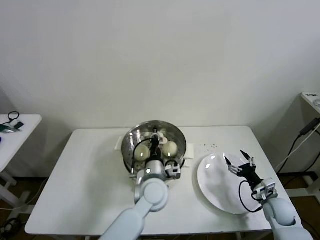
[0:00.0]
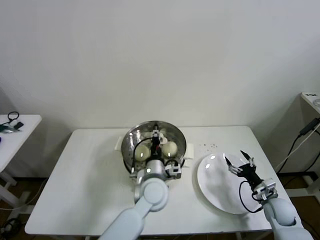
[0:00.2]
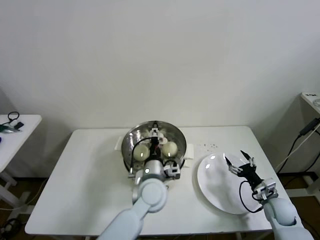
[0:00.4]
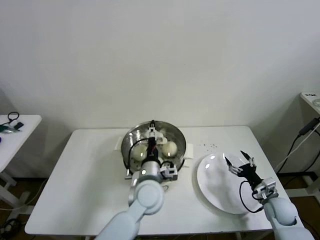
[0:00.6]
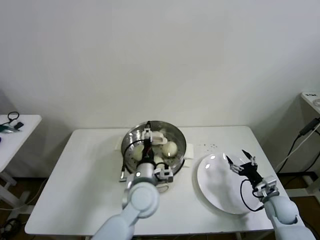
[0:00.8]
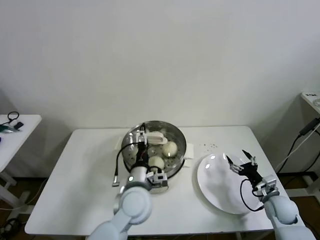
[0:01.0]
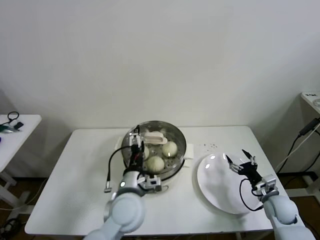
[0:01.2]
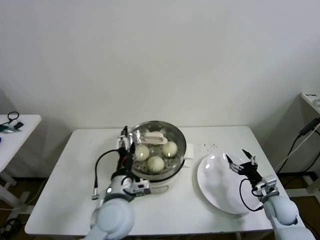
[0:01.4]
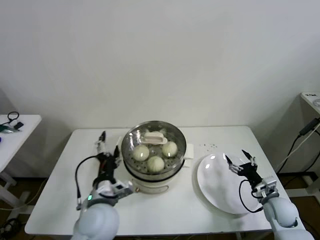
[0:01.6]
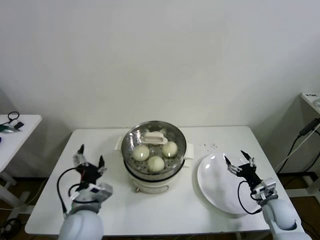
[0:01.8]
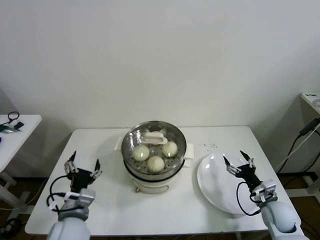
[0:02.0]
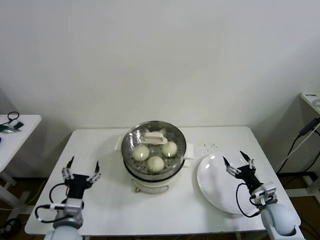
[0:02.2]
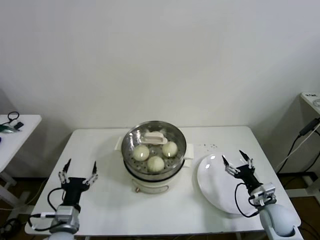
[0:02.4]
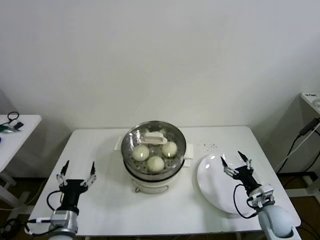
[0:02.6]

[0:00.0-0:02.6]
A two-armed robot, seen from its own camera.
0:00.0 to 0:01.2: The left gripper goes about 10 cm to the left and backward, and opens its fingers.
0:01.2 to 0:02.6: The left gripper heads to the left and backward, covering roughly 20 cm. The right gripper shifts by approximately 5 cm.

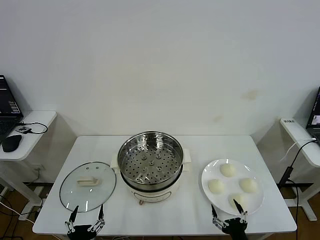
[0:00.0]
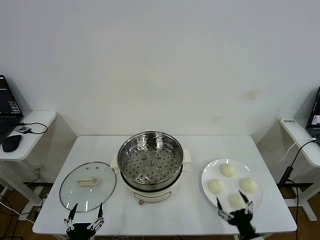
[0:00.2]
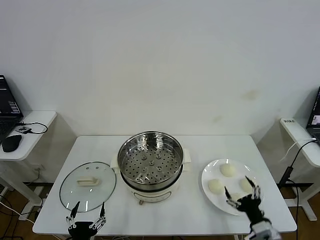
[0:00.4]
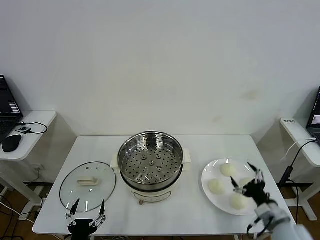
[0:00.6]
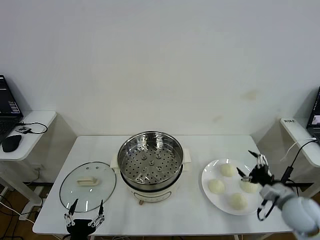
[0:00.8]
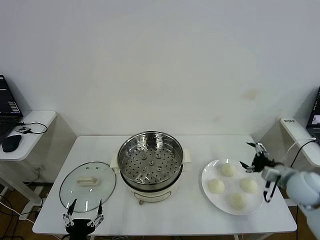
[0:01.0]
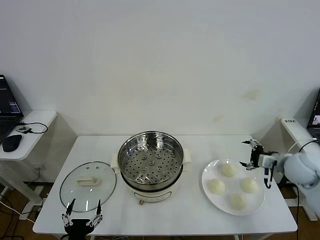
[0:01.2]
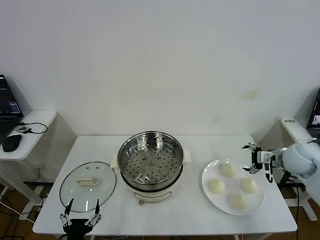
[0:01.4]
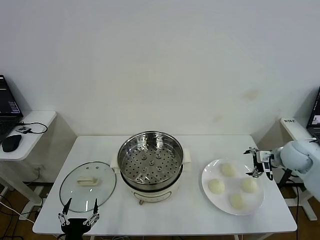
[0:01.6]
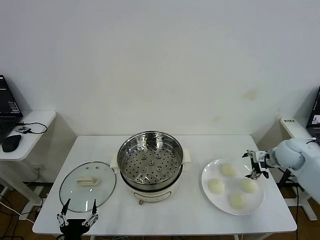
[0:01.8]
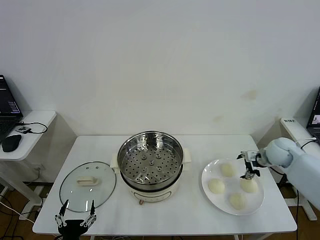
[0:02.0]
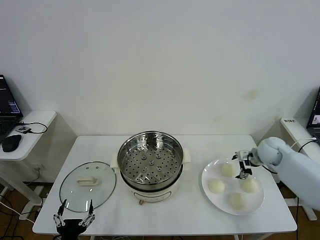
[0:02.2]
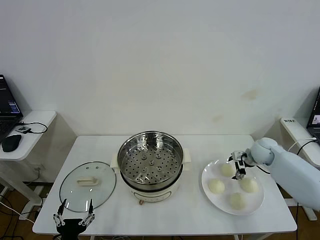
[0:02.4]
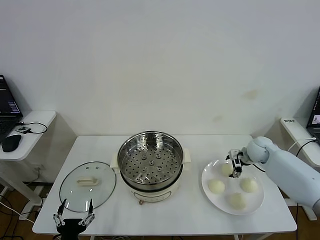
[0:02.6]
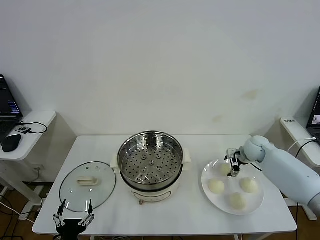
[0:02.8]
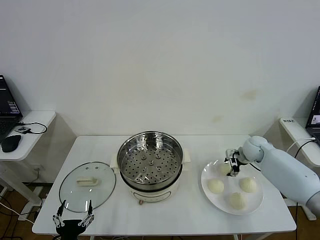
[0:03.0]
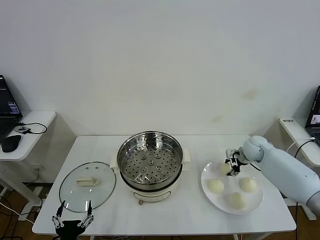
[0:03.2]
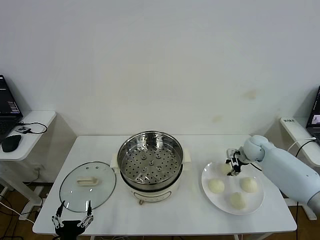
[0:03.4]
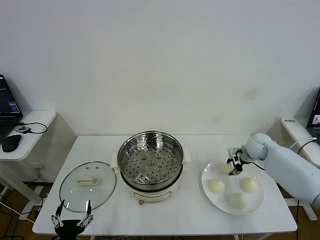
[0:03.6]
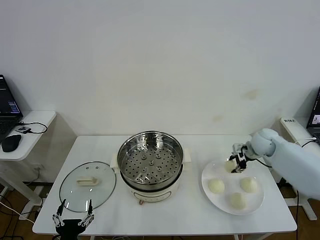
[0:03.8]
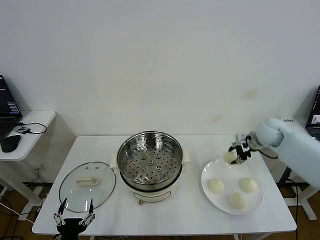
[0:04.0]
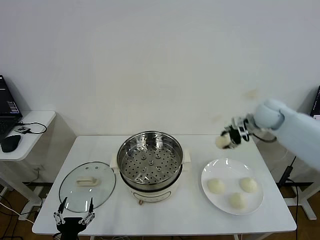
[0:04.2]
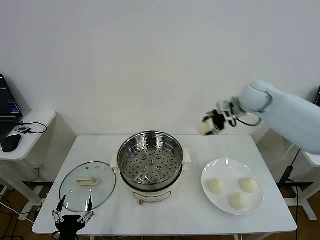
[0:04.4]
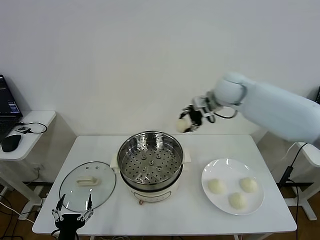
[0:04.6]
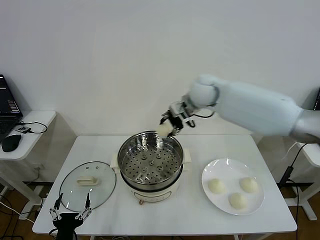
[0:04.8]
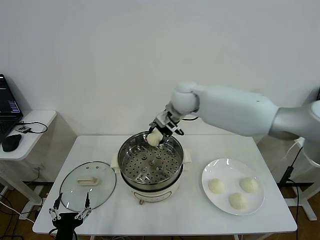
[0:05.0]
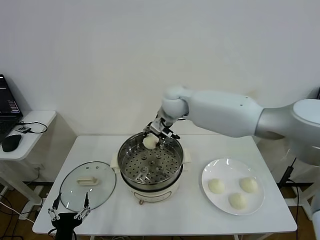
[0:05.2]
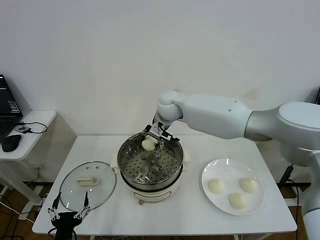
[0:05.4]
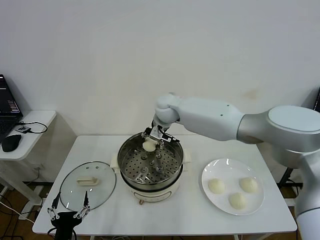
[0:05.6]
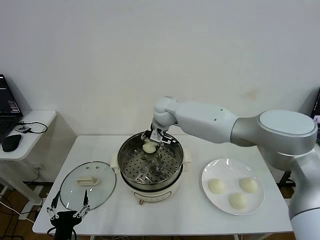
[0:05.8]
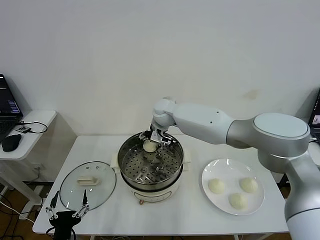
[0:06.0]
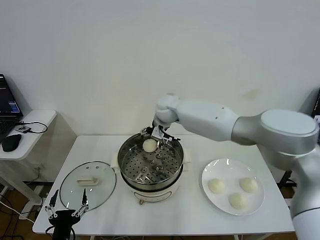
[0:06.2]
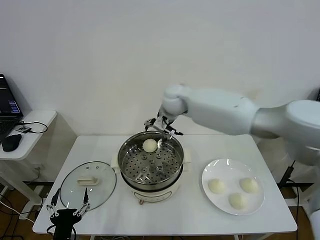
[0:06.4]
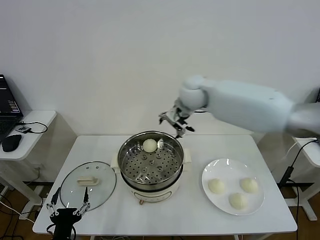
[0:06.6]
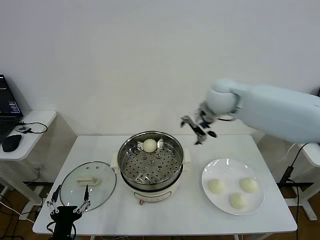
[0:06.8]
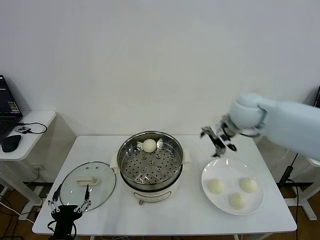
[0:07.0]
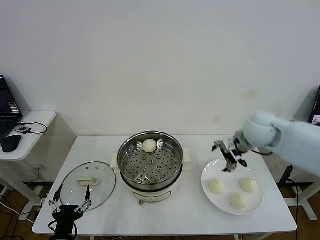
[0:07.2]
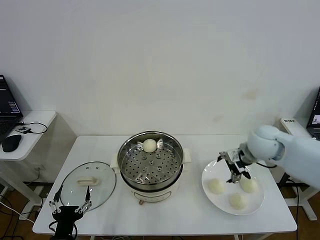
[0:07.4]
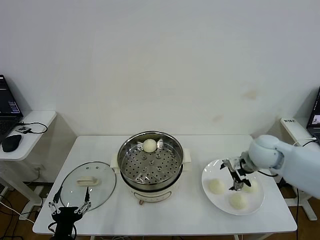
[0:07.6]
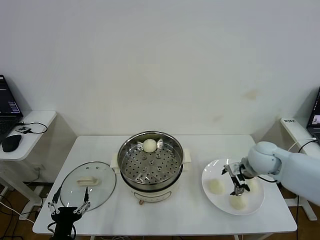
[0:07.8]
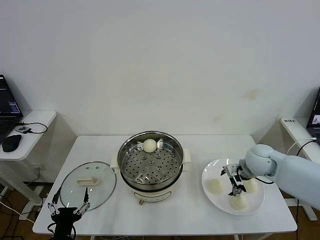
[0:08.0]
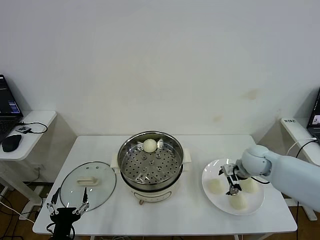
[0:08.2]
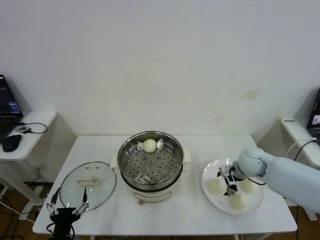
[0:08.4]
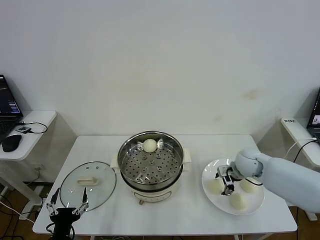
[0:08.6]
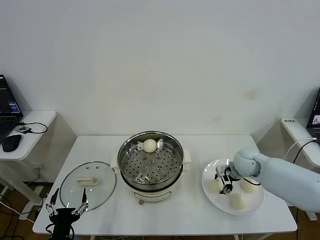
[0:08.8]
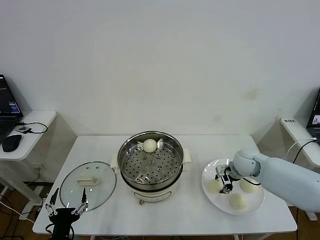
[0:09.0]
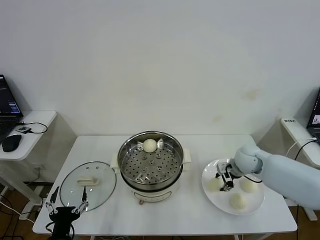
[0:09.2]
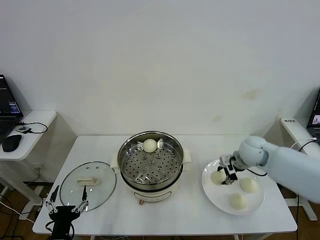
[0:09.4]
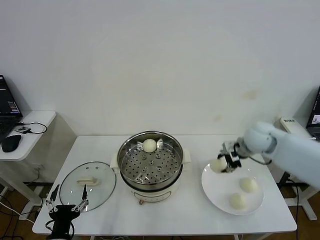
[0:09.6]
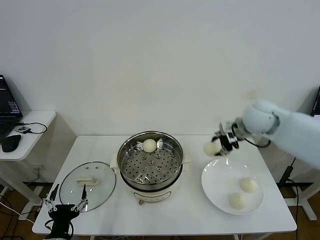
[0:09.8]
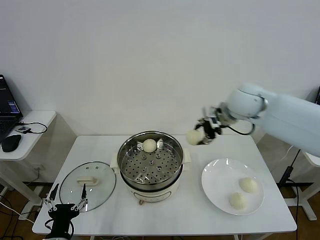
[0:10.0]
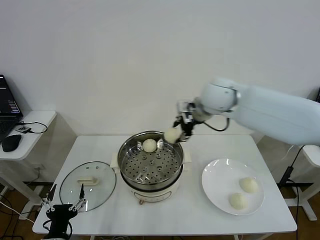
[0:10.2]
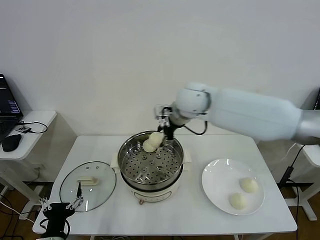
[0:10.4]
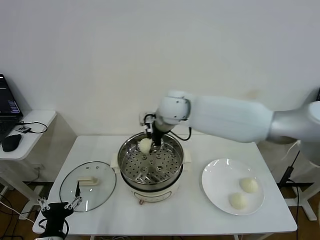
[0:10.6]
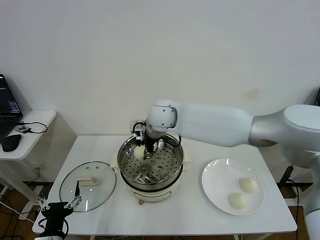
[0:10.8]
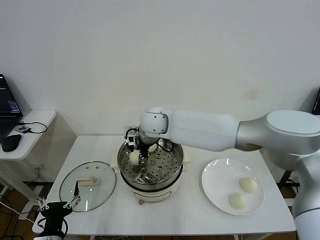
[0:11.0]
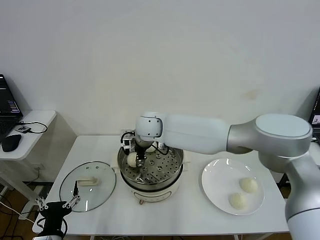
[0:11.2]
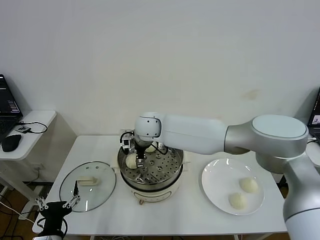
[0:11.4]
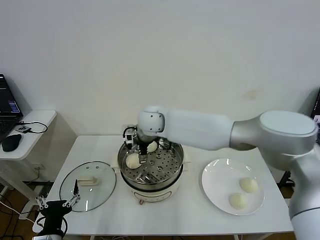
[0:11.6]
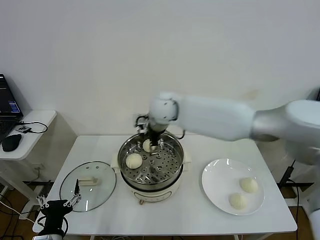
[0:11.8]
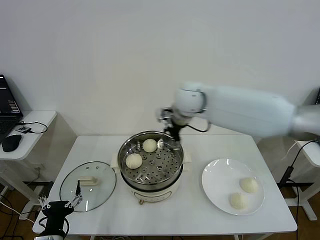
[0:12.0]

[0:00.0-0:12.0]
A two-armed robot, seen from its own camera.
Step, 0:00.0 to 0:03.2: Grasp the baozi in the plate with right gripper.
Step, 0:03.6 to 0:06.0: Place the baozi on the steamer with right gripper.
Step, 0:06.2 to 0:08.8: Grasp the baozi in the plate with right gripper.
Step, 0:09.0 to 0:11.2: Place the baozi on the steamer with right gripper.
0:01.6 to 0:03.0: The right gripper is displaced forward, downward and to the left by approximately 15 cm, and closes up.
0:03.0 to 0:04.4: The right gripper goes some 30 cm upward and to the left.
0:04.4 to 0:06.0: The right gripper goes roughly 25 cm to the left and downward, and opens.
0:06.0 to 0:07.6: The right gripper goes about 35 cm to the right and backward.
0:07.6 to 0:09.0: The right gripper heads downward, covering roughly 5 cm, and closes.
0:09.0 to 0:10.4: The right gripper travels to the left and upward by roughly 35 cm.
0:10.4 to 0:12.0: The right gripper moves to the right, roughly 5 cm, and opens its fingers.

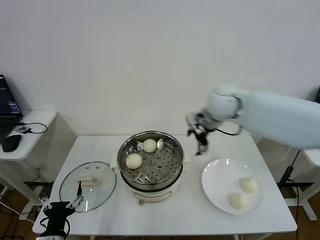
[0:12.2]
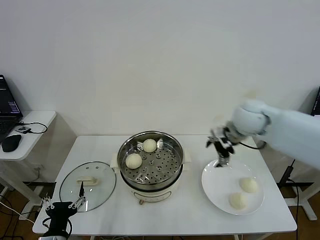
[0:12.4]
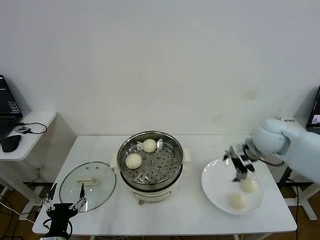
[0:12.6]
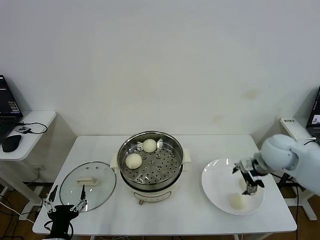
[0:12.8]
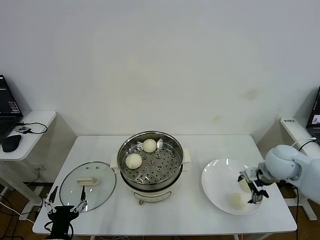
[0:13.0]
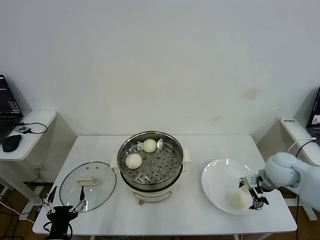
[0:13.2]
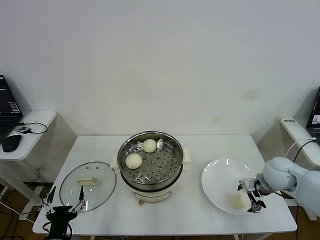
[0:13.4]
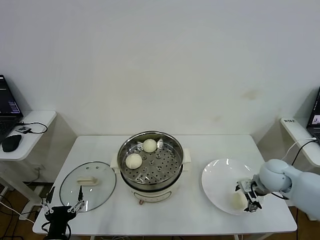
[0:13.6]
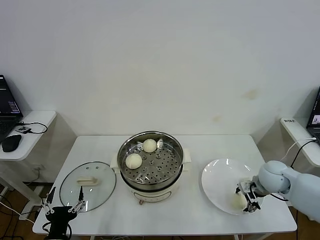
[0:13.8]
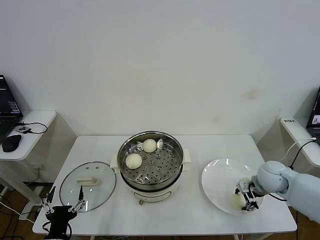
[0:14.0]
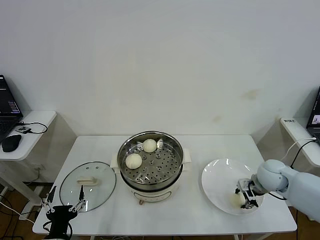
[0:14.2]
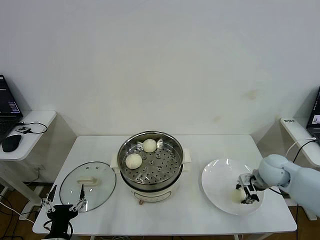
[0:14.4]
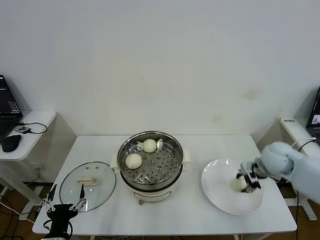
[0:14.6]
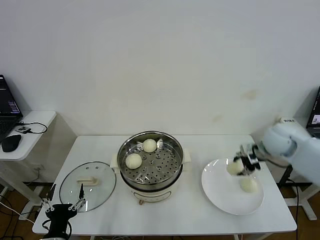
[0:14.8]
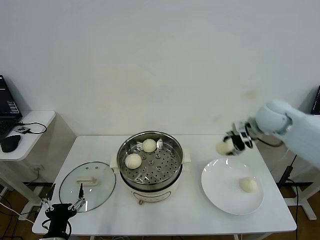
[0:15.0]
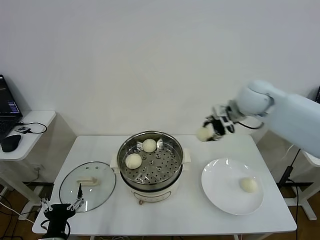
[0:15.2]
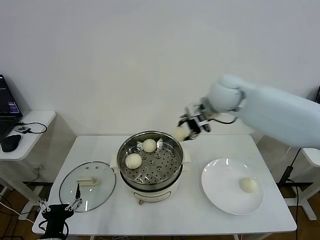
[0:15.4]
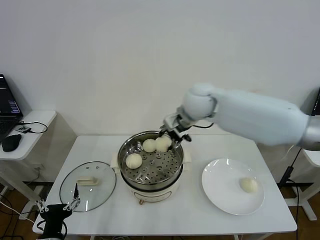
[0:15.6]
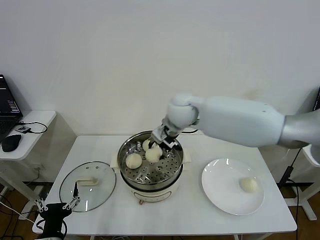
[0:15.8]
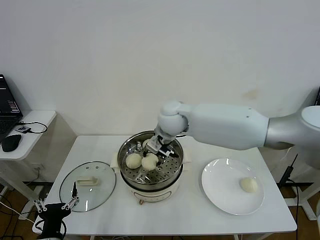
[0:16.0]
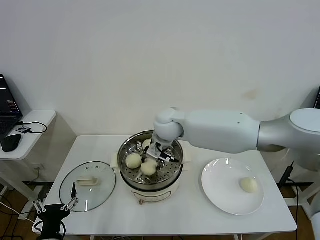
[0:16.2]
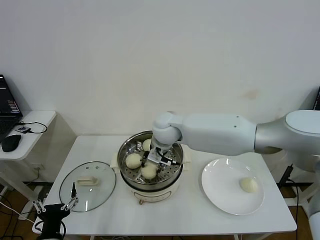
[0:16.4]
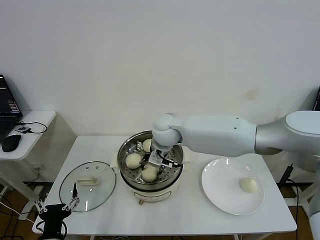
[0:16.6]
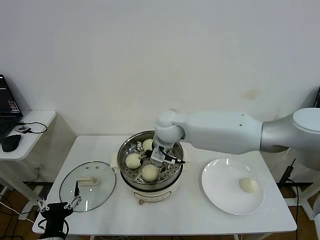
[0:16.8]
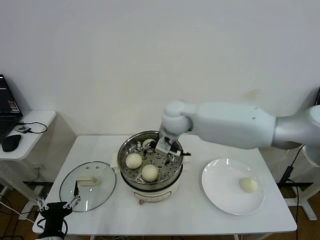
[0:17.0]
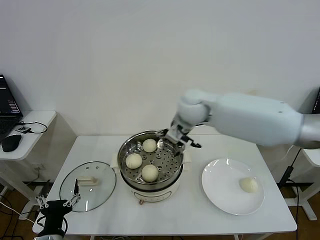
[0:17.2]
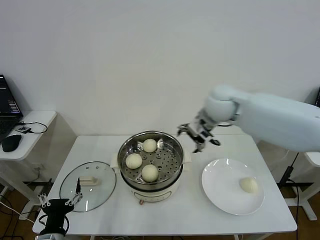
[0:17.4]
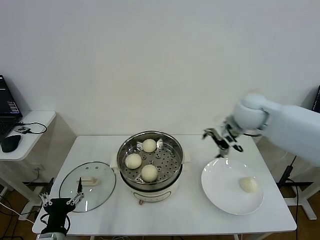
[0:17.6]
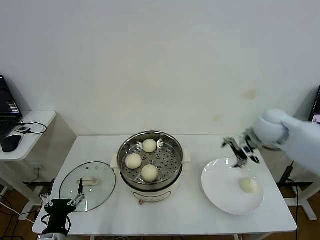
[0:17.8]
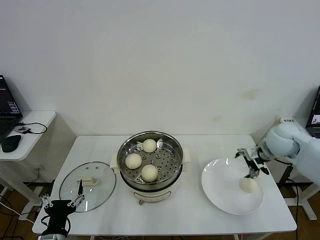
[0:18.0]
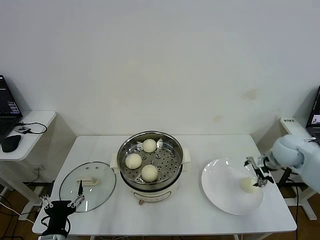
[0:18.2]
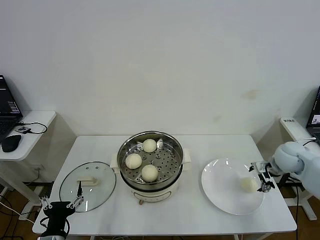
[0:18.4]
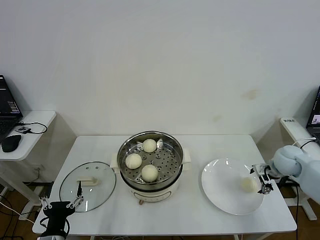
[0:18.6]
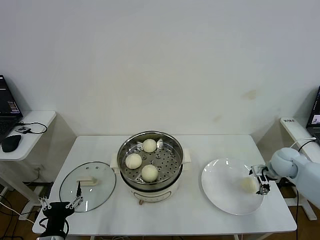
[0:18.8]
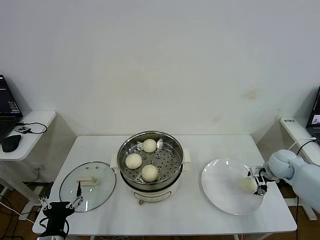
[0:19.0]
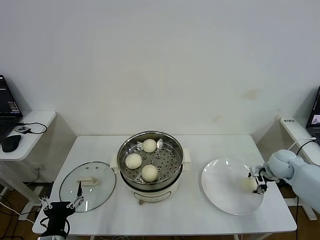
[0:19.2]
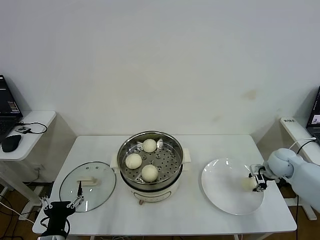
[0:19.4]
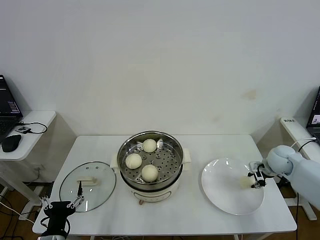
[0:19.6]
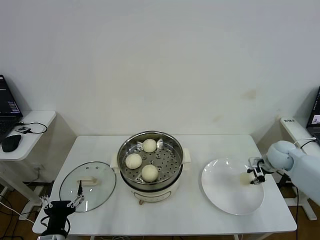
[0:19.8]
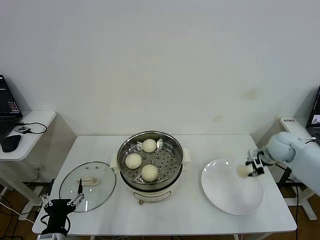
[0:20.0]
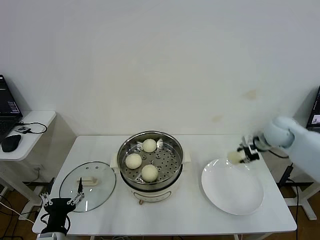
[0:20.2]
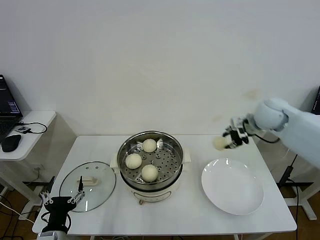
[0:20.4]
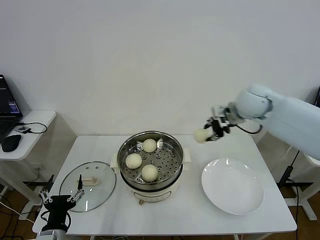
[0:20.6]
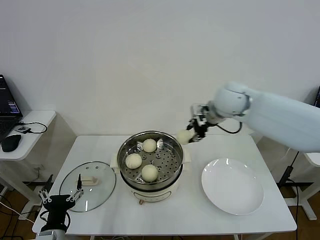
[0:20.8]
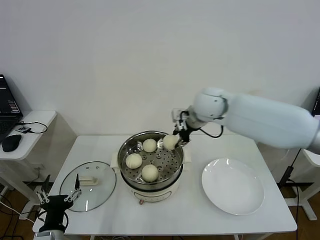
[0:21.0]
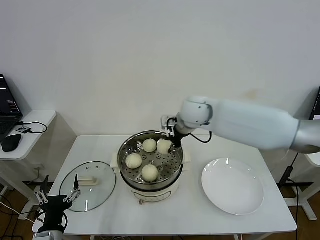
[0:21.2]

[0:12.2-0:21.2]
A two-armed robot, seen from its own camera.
Step, 0:12.2 to 0:14.2: Grasp the baozi in the plate with right gripper.
Step, 0:14.4 to 0:16.8: Place the baozi on the steamer with right gripper.
Step, 0:17.0 to 0:19.6: Grasp the baozi in the plate with right gripper.
0:12.2 to 0:13.8: The right gripper goes approximately 25 cm downward, to the right and backward.
0:13.8 to 0:15.2: The right gripper is displaced upward, to the left and forward by about 30 cm, and closes up.
0:15.2 to 0:16.6: The right gripper goes about 25 cm to the left and downward.
0:16.6 to 0:18.2: The right gripper moves to the right, about 40 cm, and opens.
0:18.2 to 0:19.8: The right gripper moves approximately 5 cm, and closes up.
0:19.8 to 0:21.2: The right gripper travels to the left and upward by some 35 cm.